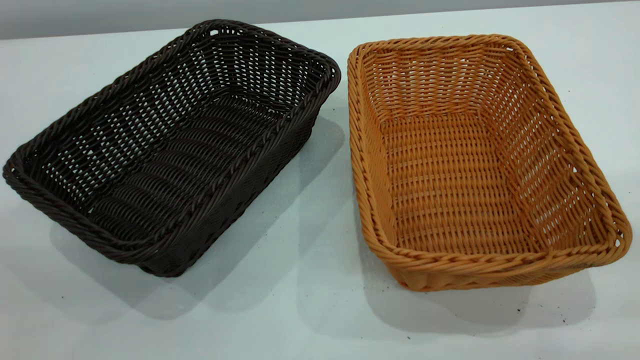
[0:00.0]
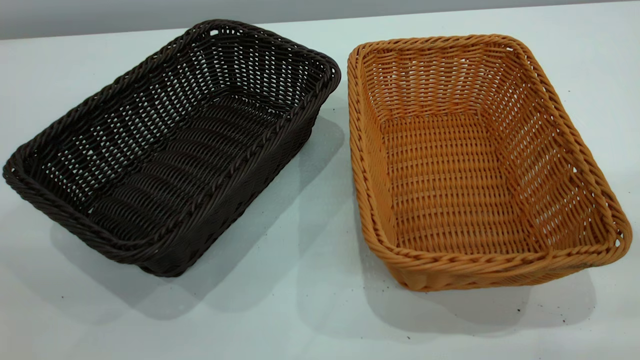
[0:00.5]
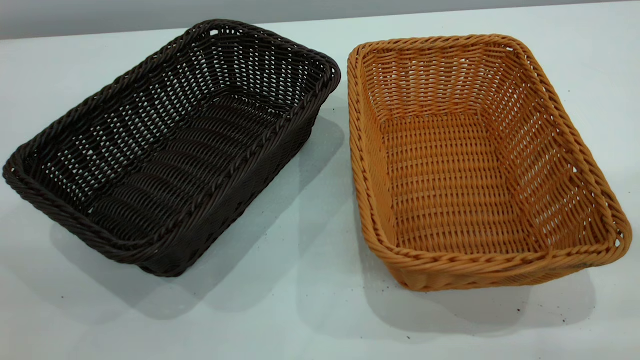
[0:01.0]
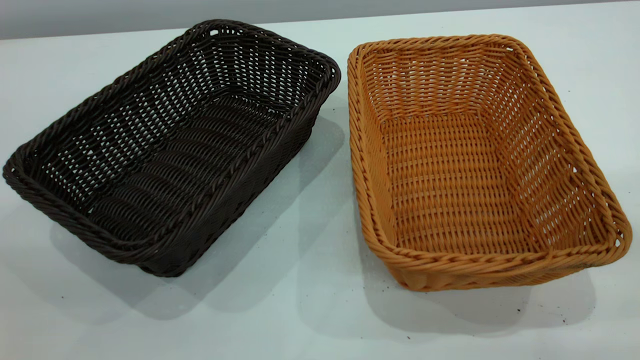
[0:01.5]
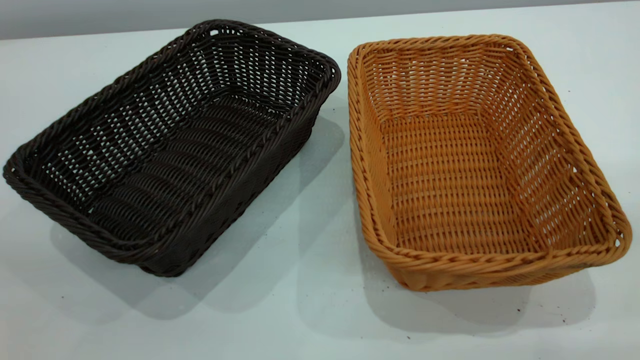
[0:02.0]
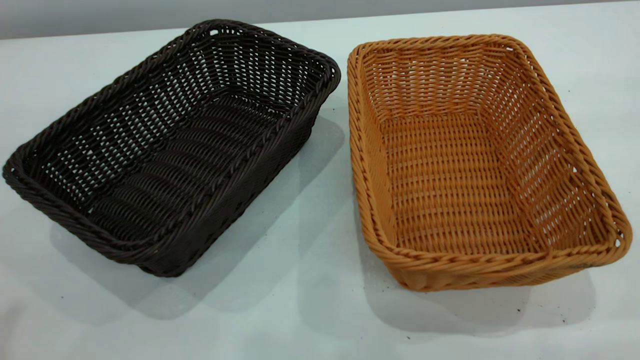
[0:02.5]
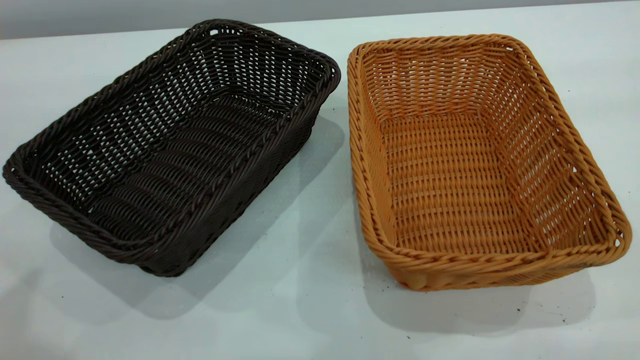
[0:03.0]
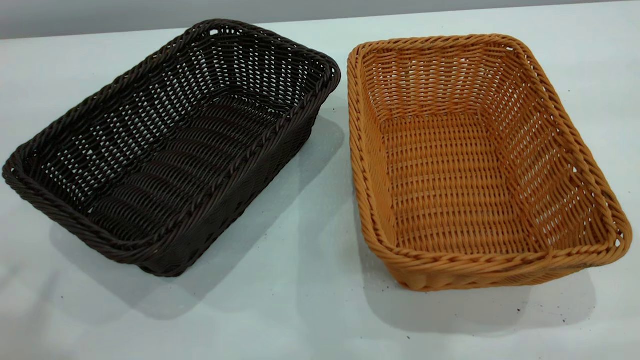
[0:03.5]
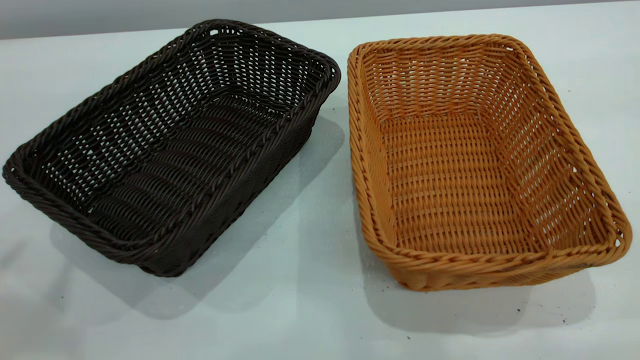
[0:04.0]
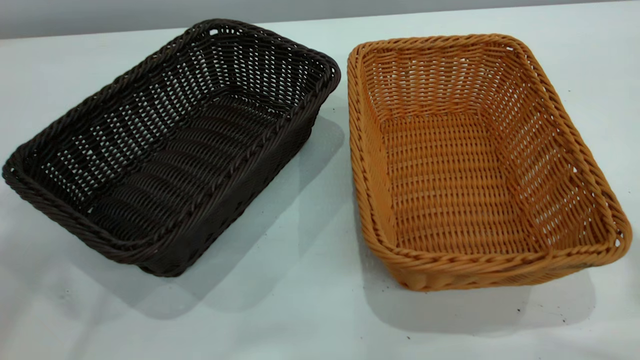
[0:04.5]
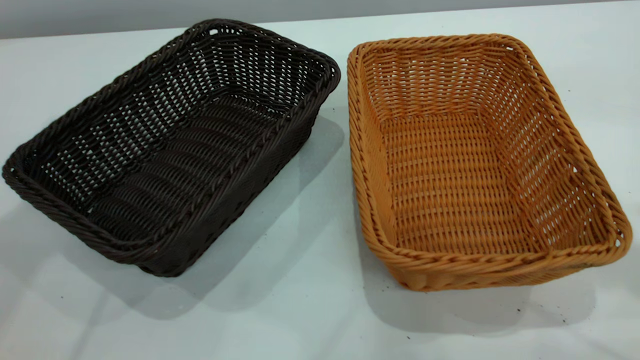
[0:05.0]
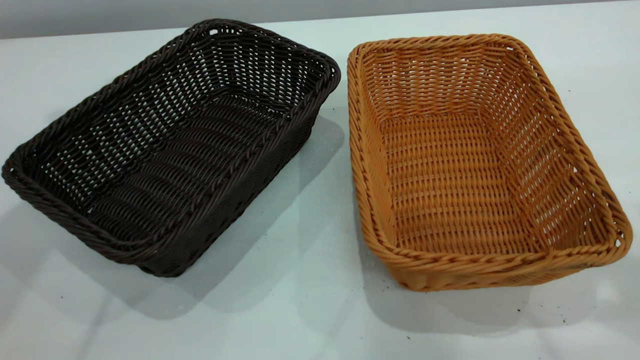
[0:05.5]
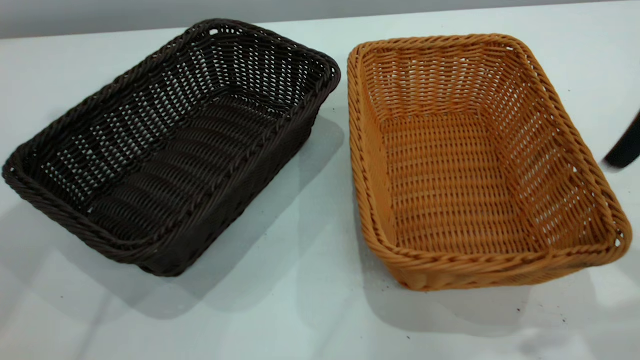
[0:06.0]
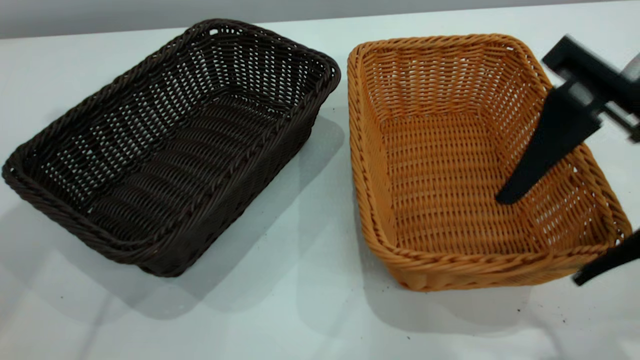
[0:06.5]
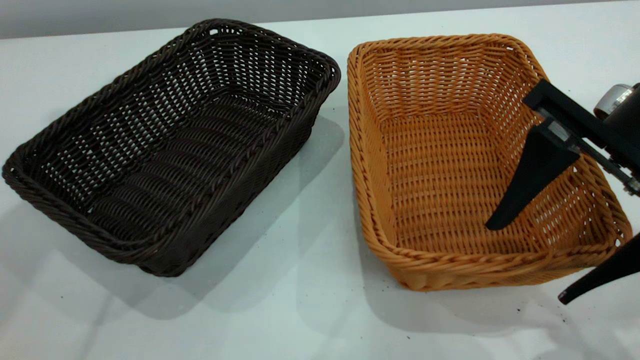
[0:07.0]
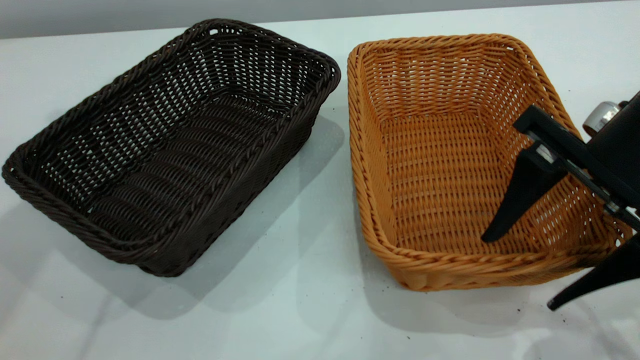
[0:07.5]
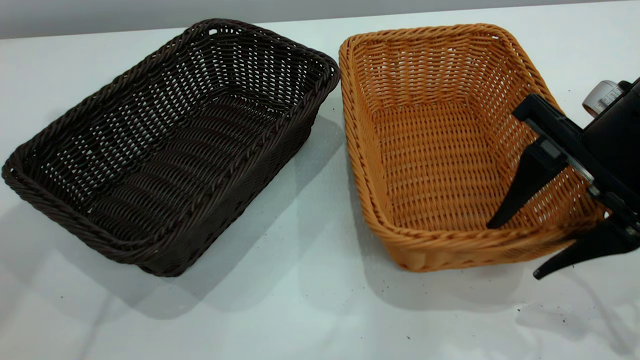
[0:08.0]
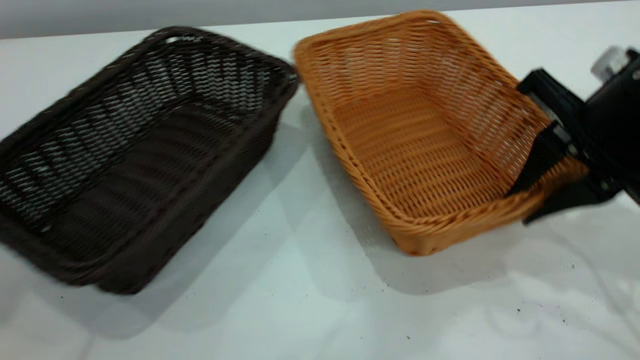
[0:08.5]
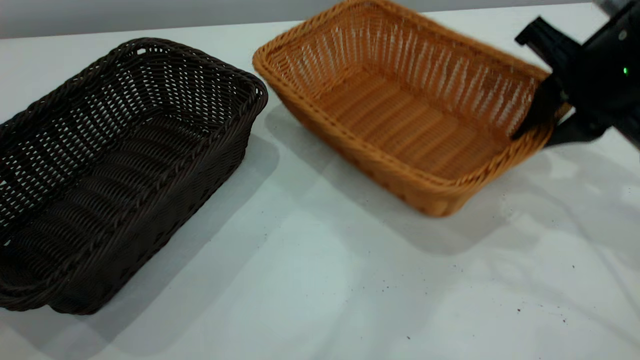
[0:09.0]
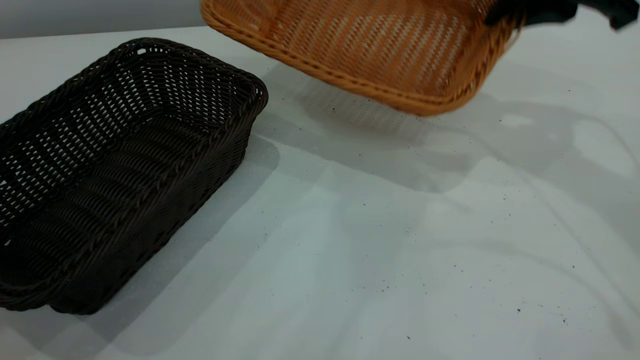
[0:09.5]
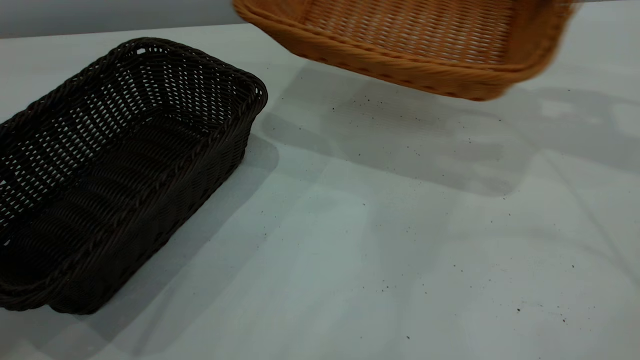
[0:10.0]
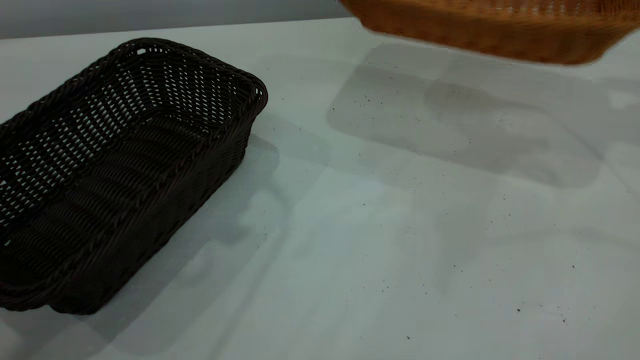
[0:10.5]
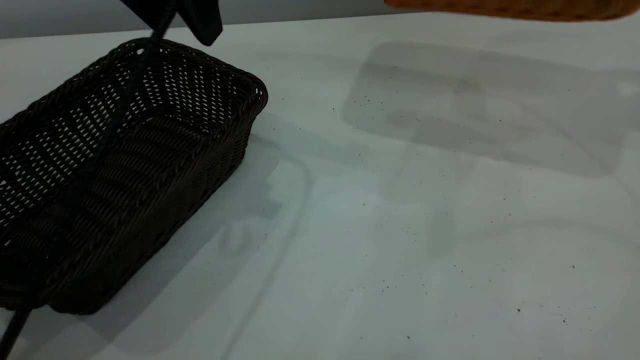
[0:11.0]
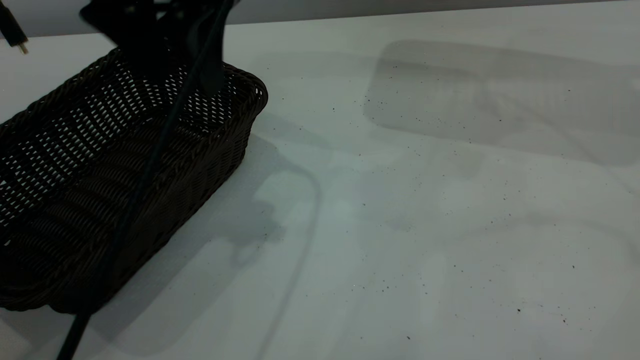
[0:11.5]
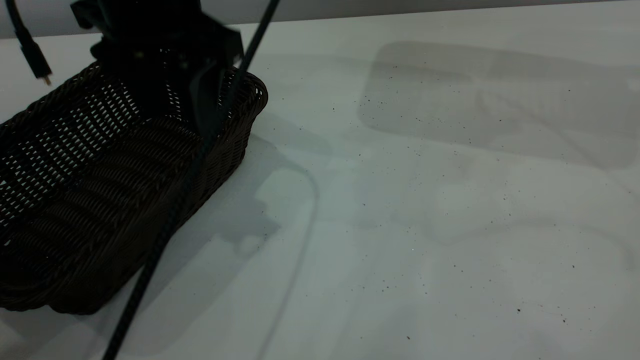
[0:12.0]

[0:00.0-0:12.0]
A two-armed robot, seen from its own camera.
Task of the whole recording: the left gripper grasp the black basket and place it in the center of the table, the right gripper grasp the brown basket and place it inside the black one.
Step, 0:00.0 to 0:09.0: Pick up the light basket with the right gripper.
0:04.0 to 0:06.0: The right gripper is displaced downward and to the left by some 15 cm.
0:06.0 to 0:08.0: The right gripper is displaced downward and forward by approximately 10 cm.
0:08.0 to 0:10.0: The right gripper goes roughly 20 cm forward, upward and to the right, and closes, while the left gripper moves to the right, roughly 5 cm.
0:10.0 to 0:12.0: The right gripper goes roughly 15 cm upward and to the right. The left gripper heads downward and to the right, covering approximately 15 cm.

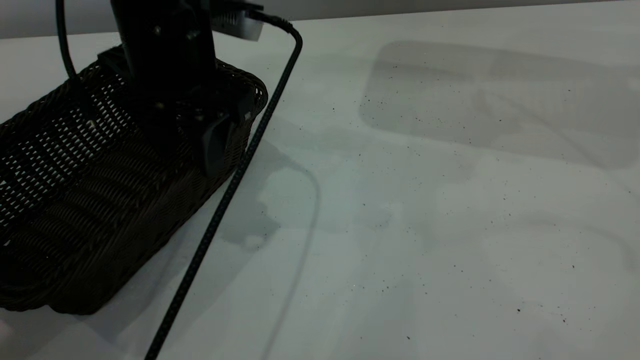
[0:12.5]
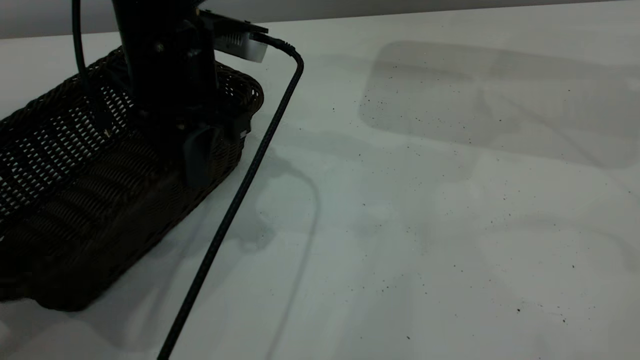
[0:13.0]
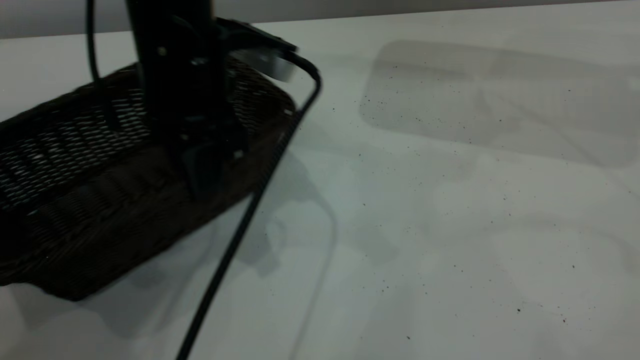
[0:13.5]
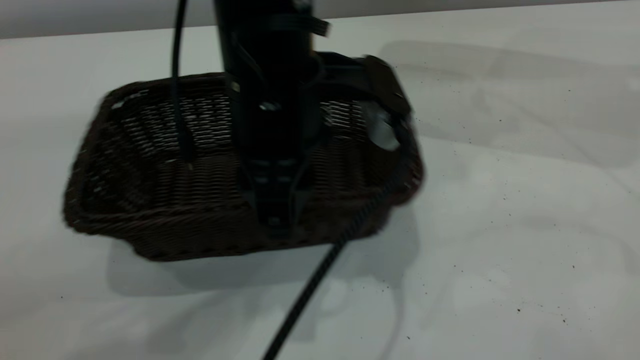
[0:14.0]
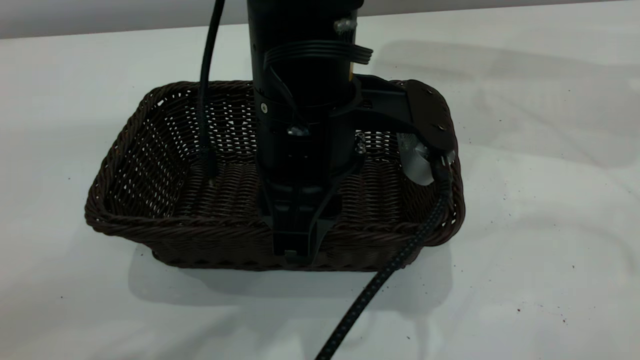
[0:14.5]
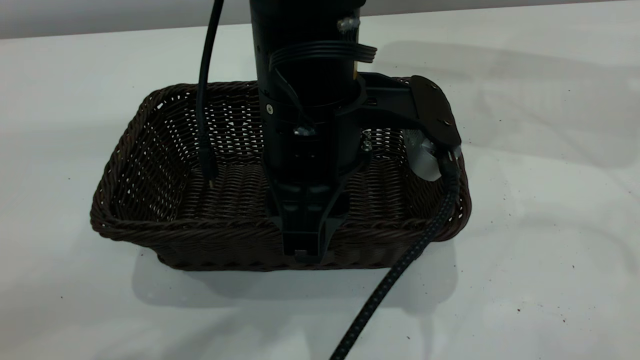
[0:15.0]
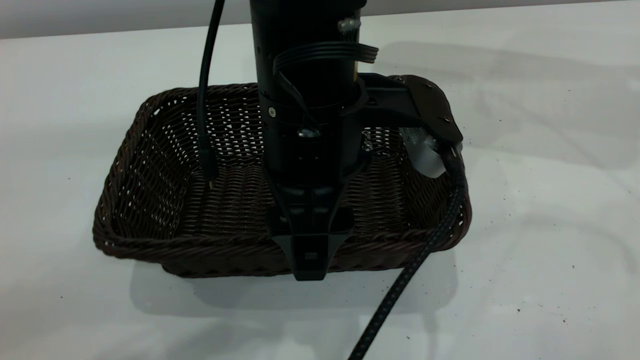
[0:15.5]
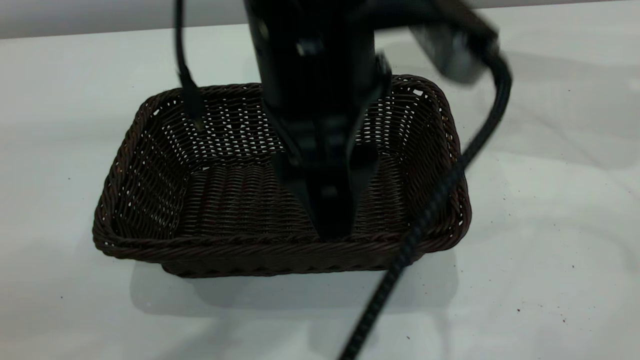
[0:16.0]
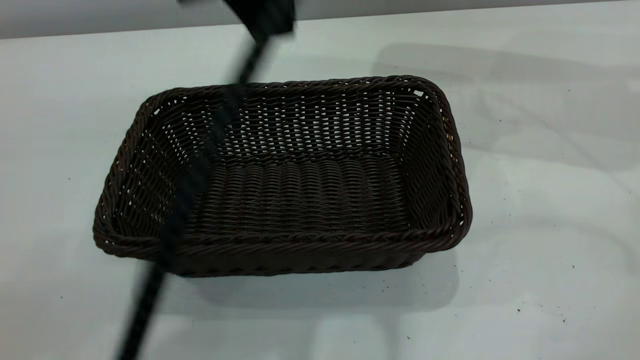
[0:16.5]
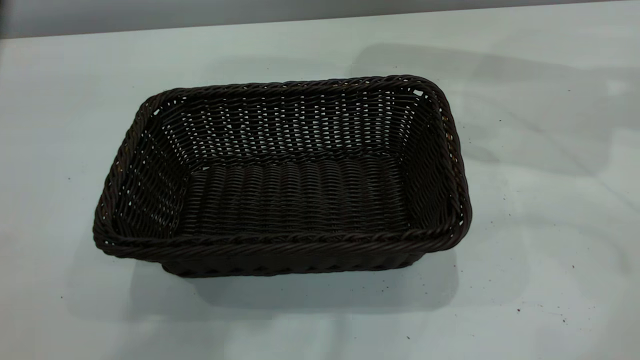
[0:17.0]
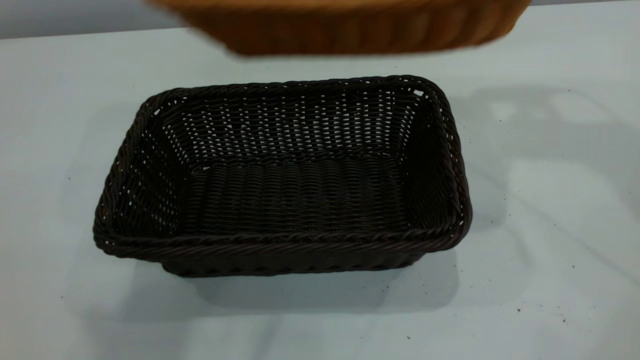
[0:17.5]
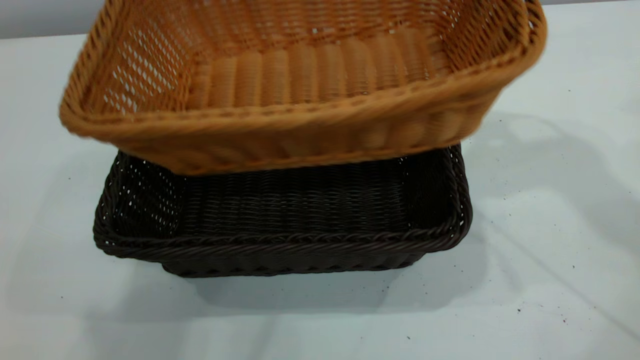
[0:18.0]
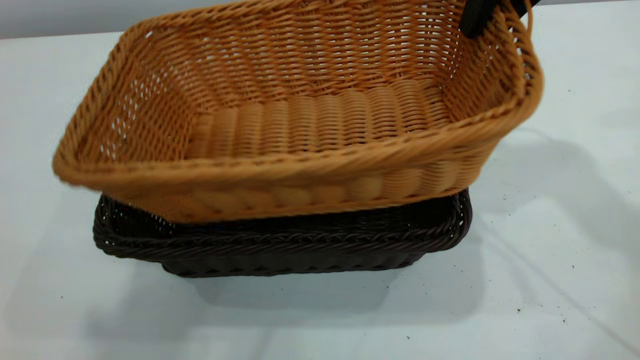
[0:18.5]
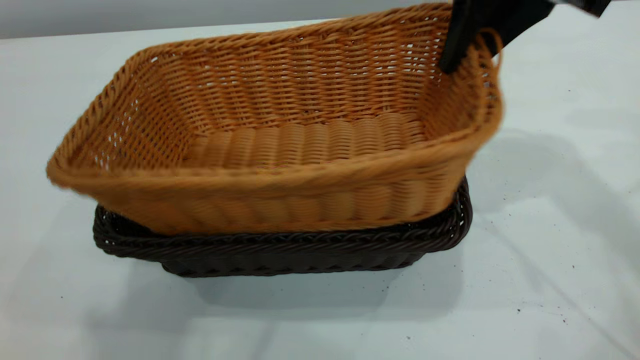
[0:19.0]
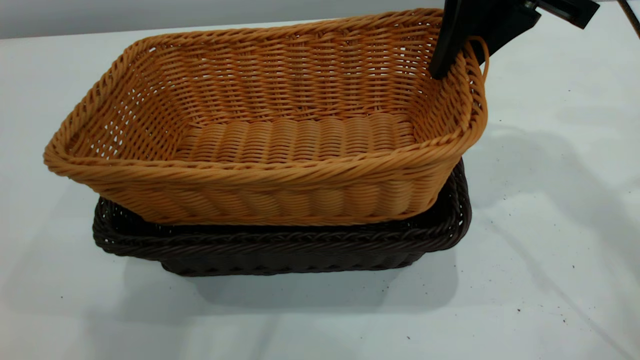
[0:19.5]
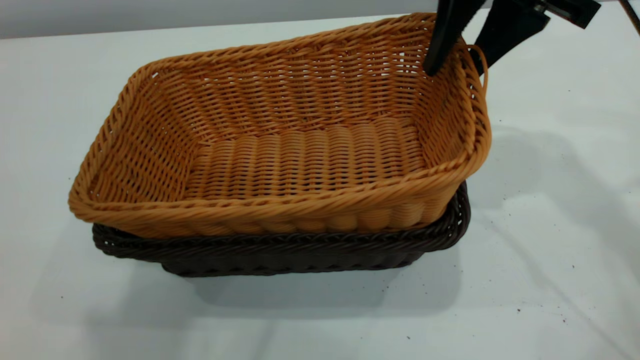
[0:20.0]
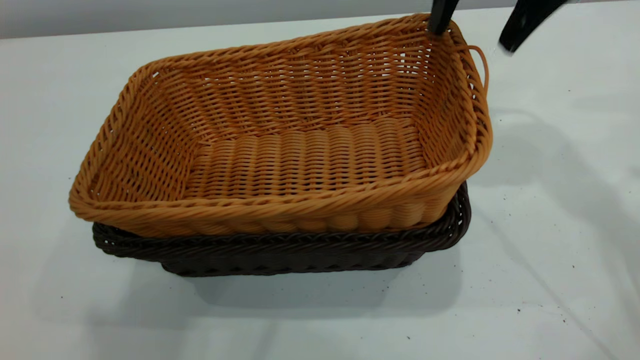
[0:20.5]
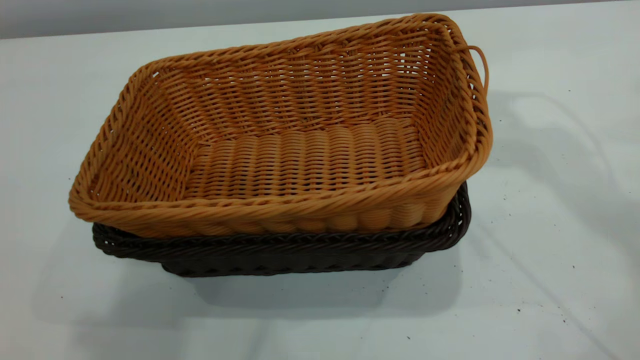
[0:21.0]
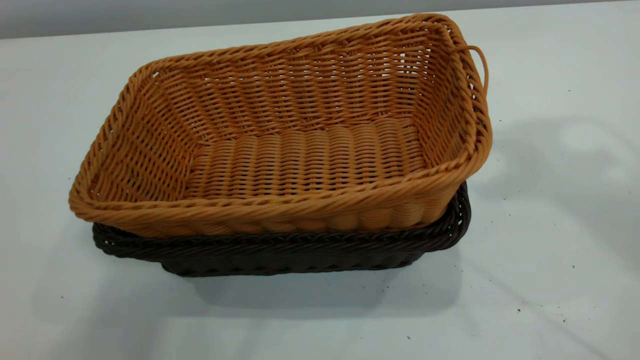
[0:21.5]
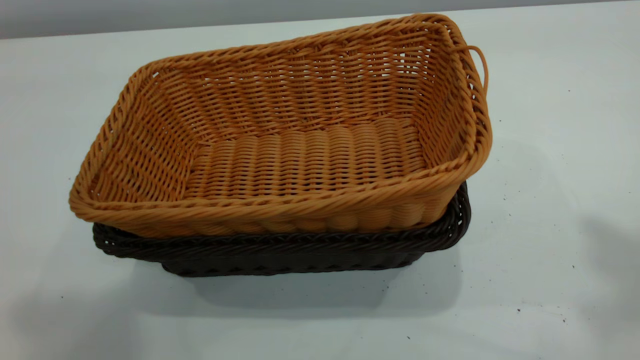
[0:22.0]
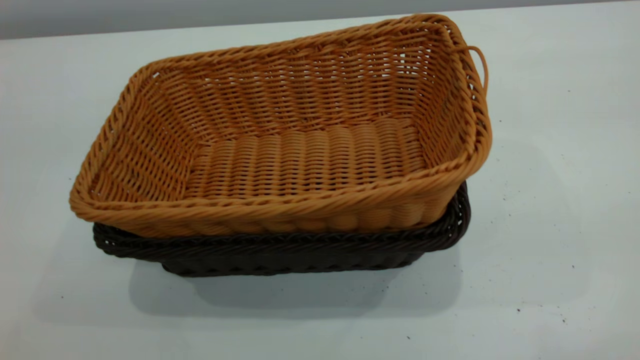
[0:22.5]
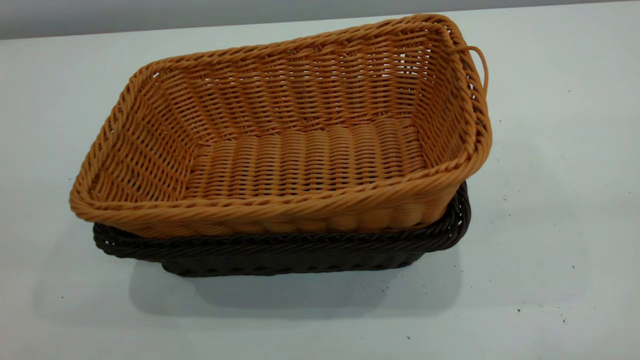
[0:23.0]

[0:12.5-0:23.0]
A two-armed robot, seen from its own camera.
Task of the whole recording: the left gripper grasp the black basket and place it in the center of the table, the right gripper grasp the brown basket and place it inside the black one.
Step, 0:12.5 to 0:16.0: Move the dark basket to the center of view.
Step, 0:16.5 to 0:20.5: Place the light basket on the dark basket.
0:12.5 to 0:14.5: The left gripper shifts roughly 15 cm to the right and backward, and closes its fingers.
0:14.5 to 0:16.5: The left gripper is displaced upward by about 20 cm, and opens and closes again.
0:16.5 to 0:19.0: The right gripper goes approximately 25 cm to the left and downward. Meanwhile the left gripper travels upward and to the left by approximately 15 cm.
0:19.0 to 0:21.0: The right gripper heads upward, covering about 10 cm, and opens its fingers.
